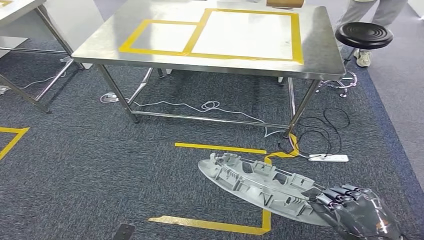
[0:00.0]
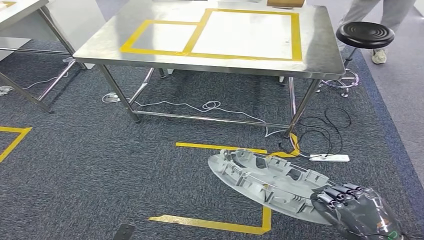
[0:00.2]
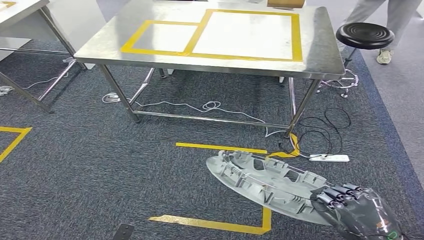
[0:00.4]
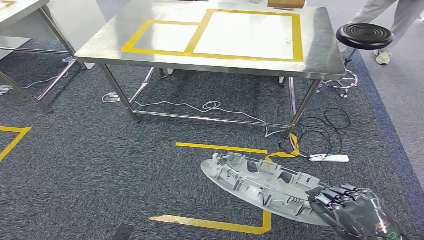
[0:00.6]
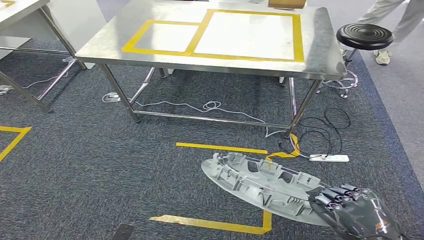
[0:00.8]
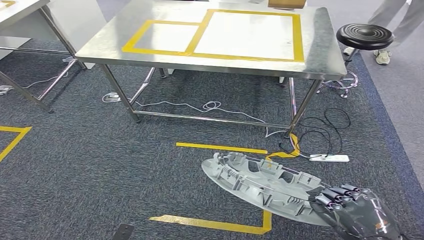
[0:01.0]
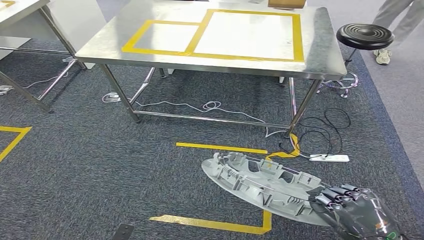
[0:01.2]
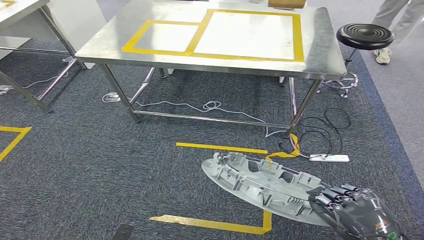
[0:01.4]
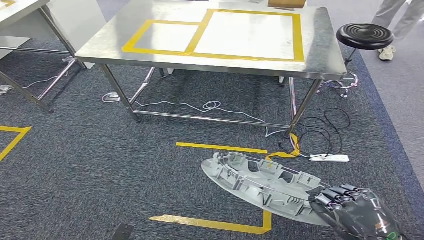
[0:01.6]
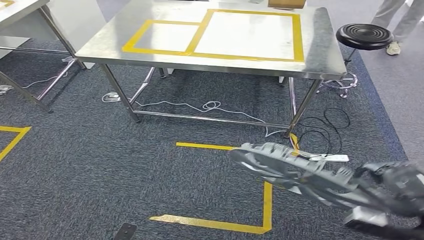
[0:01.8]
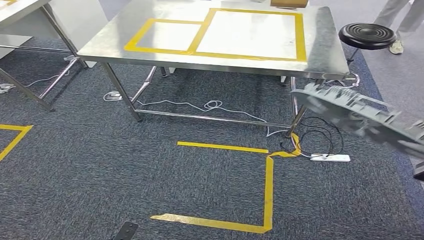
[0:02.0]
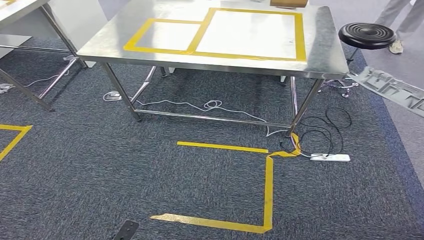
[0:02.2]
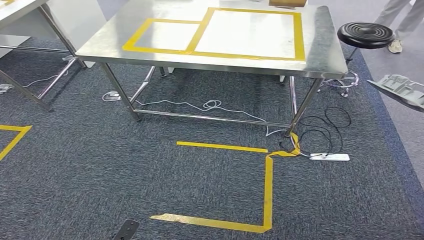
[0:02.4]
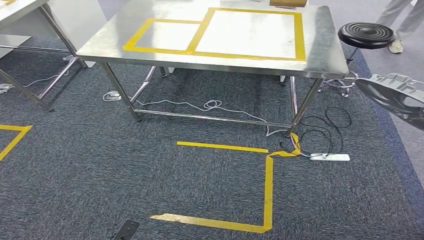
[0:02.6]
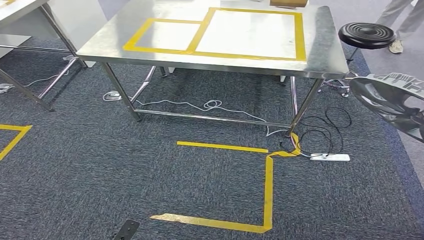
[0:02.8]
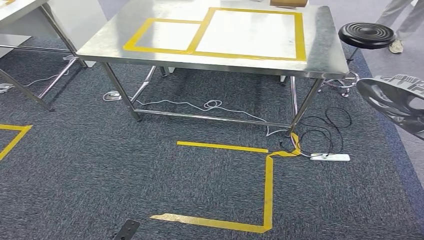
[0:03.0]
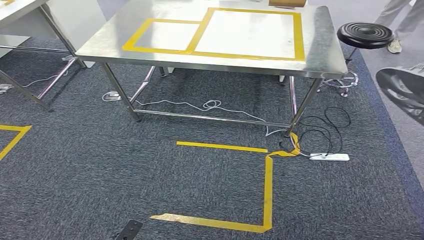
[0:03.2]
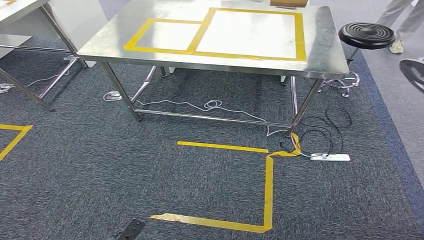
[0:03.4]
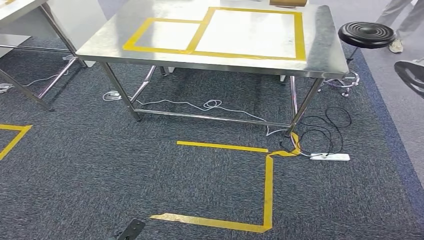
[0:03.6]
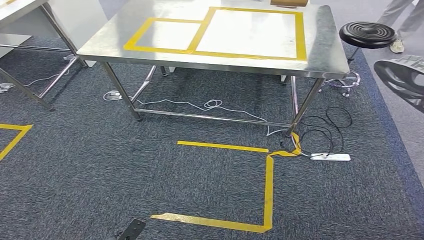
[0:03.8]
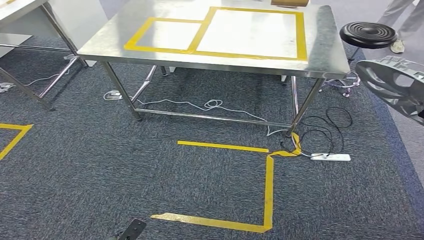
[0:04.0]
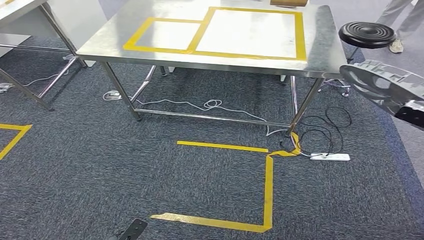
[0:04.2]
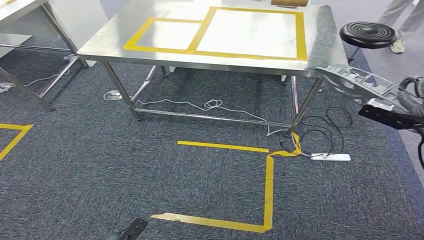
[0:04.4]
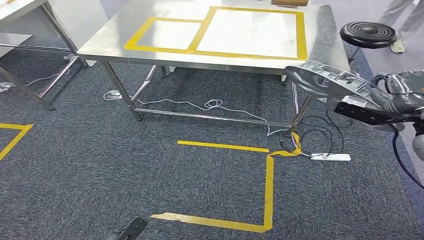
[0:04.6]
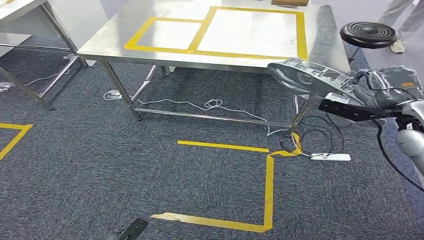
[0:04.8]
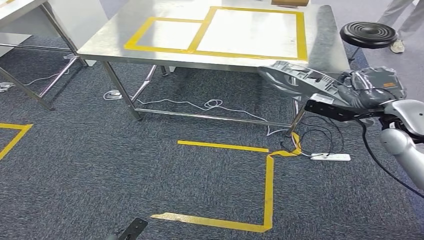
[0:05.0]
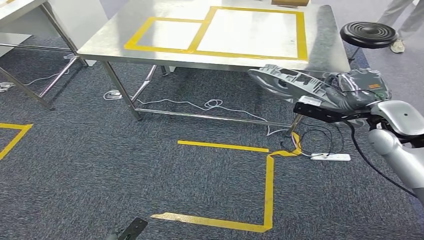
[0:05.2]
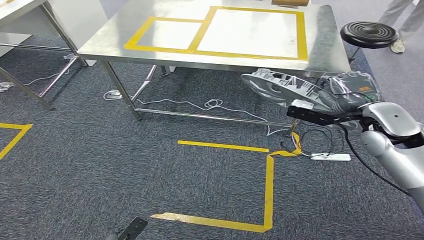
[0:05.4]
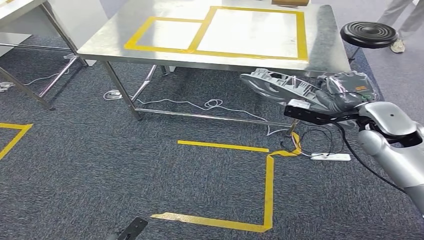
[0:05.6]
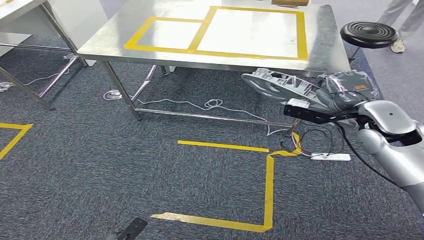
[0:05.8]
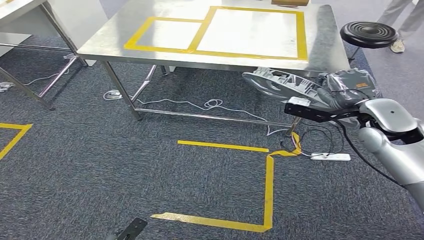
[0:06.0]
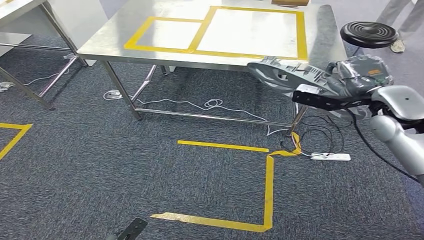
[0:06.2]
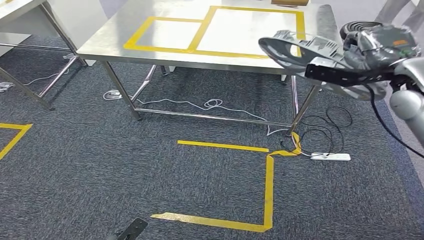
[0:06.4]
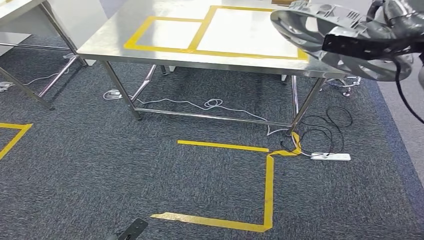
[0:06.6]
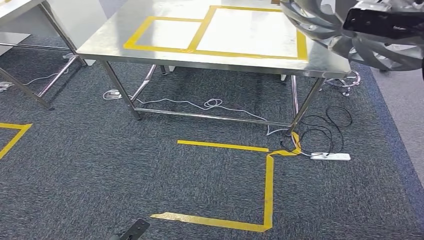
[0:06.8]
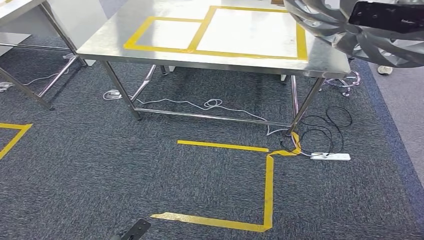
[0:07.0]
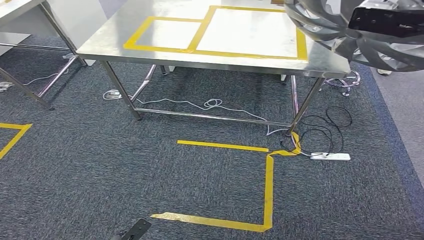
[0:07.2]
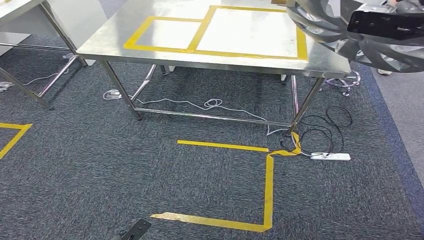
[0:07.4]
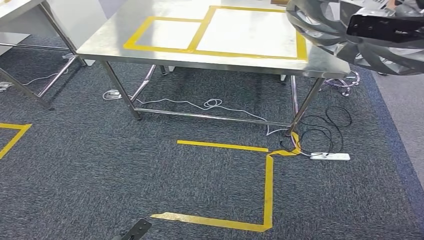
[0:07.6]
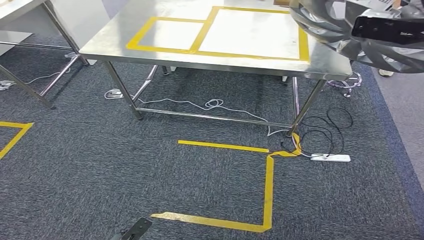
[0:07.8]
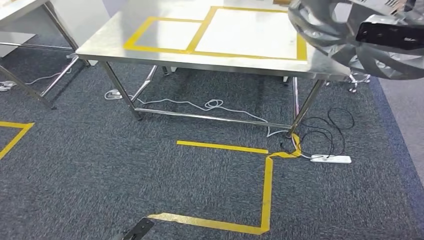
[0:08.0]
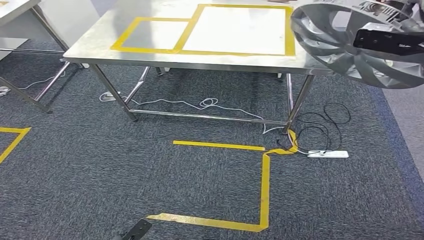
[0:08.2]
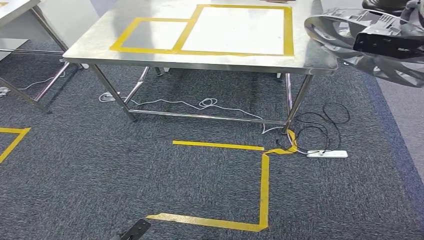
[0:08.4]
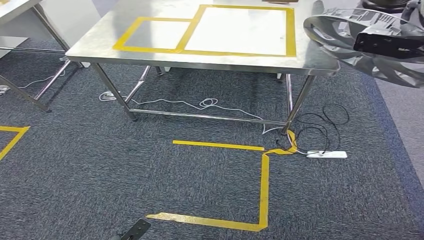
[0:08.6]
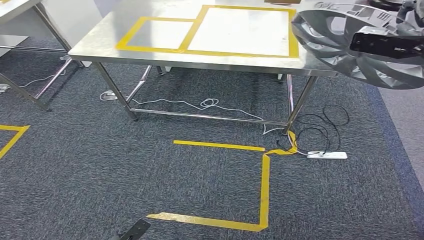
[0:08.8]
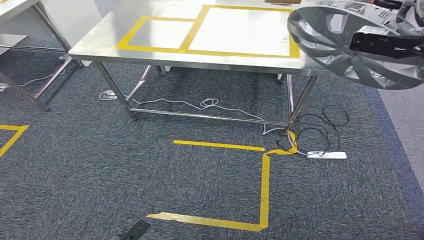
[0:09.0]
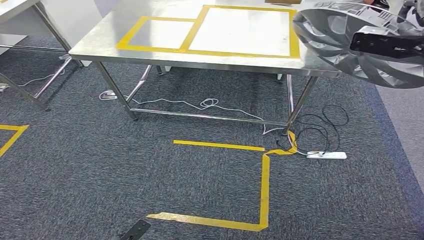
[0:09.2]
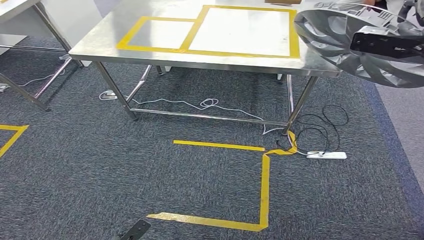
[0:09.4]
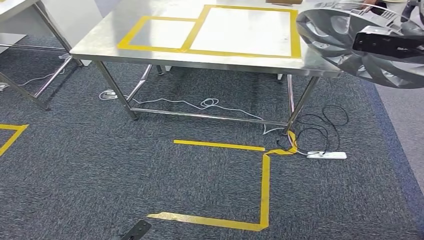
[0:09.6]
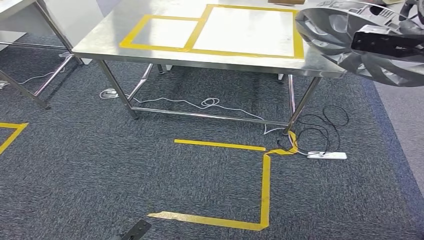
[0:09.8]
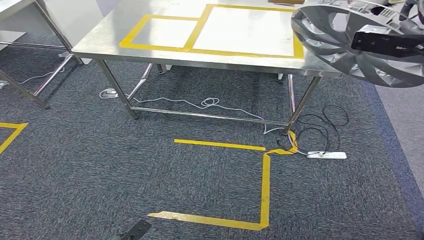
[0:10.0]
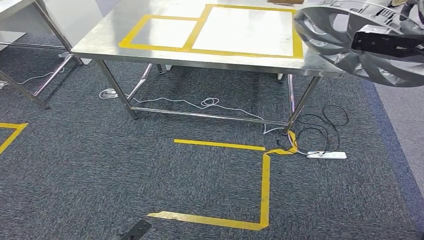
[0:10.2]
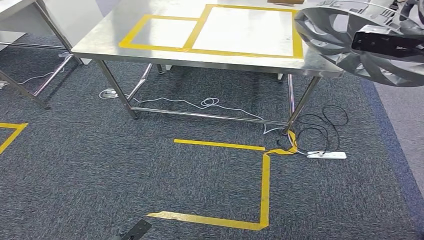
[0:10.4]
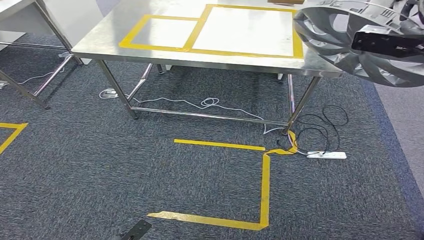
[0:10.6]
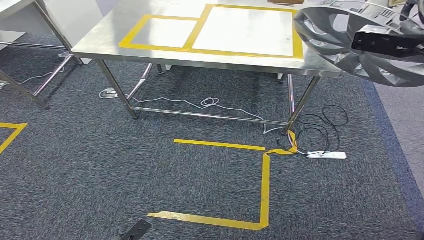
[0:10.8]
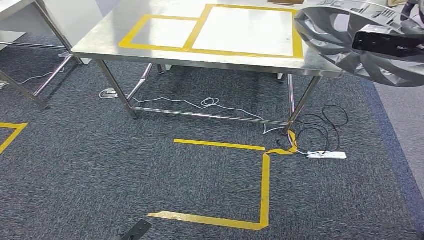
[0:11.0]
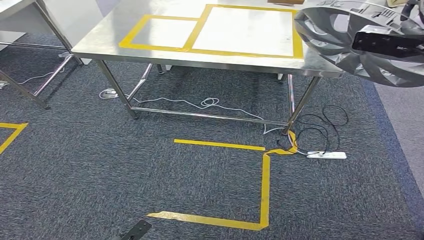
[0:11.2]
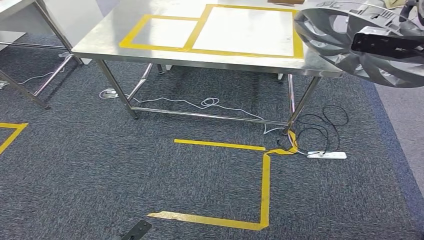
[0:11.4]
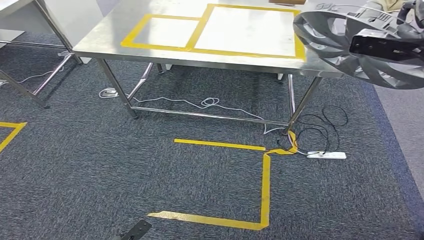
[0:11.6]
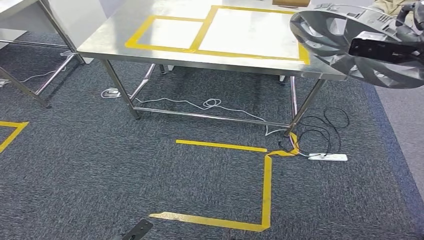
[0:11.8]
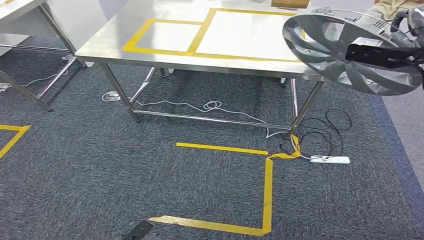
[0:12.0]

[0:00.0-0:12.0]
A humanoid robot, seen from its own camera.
0:00.0 to 0:01.6: Both hands stay put.
0:01.6 to 0:03.0: The right hand shifts roughly 25 cm to the right, upward and forward.
0:03.0 to 0:04.4: The right hand moves forward and to the left, roughly 15 cm.
0:04.4 to 0:06.0: The right hand shifts roughly 15 cm to the left.
0:06.0 to 0:07.6: The right hand is displaced upward by roughly 20 cm.
0:07.6 to 0:09.0: The hands stay close to where they were, moving slightly.
0:09.0 to 0:10.4: Both hands stay put.

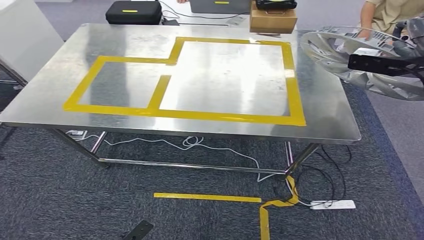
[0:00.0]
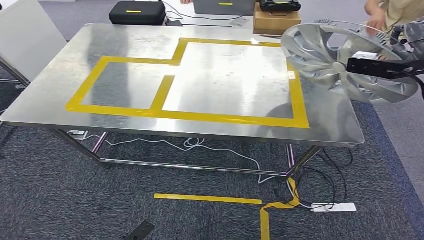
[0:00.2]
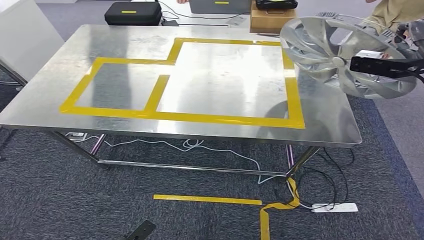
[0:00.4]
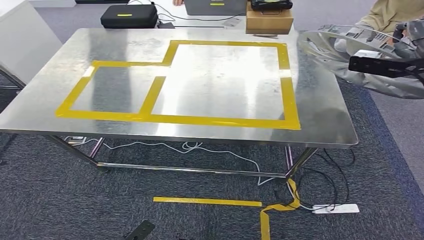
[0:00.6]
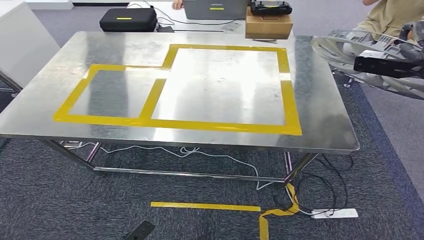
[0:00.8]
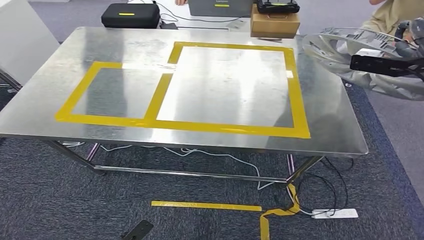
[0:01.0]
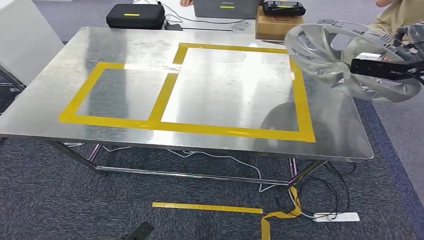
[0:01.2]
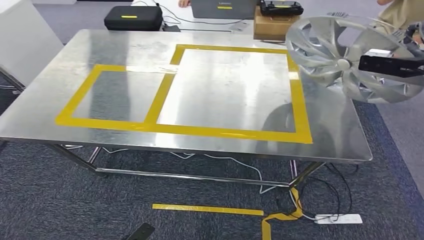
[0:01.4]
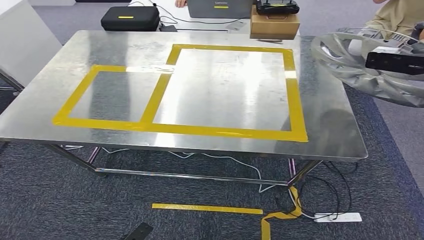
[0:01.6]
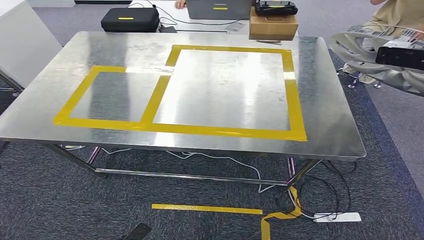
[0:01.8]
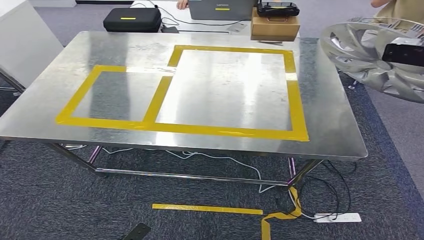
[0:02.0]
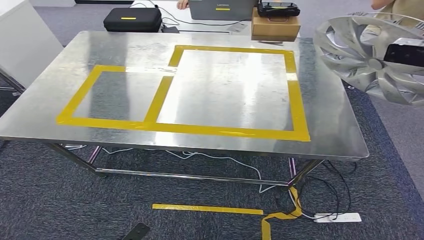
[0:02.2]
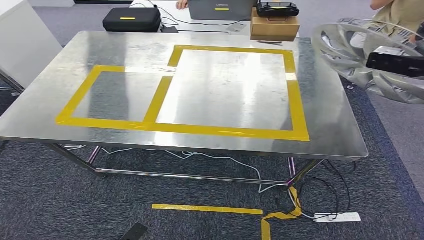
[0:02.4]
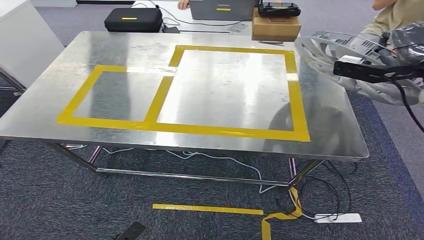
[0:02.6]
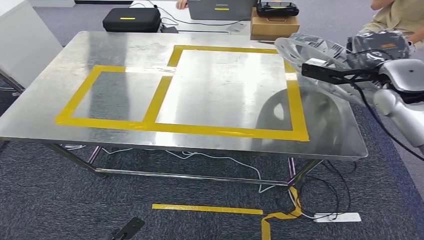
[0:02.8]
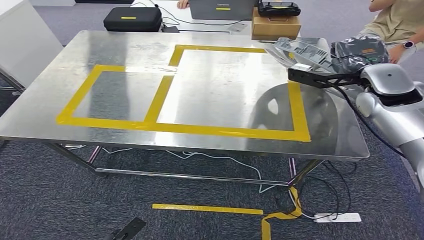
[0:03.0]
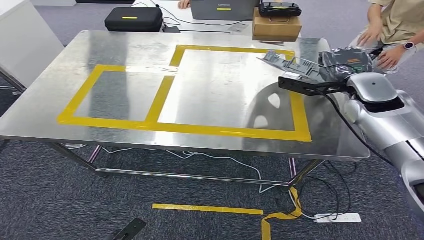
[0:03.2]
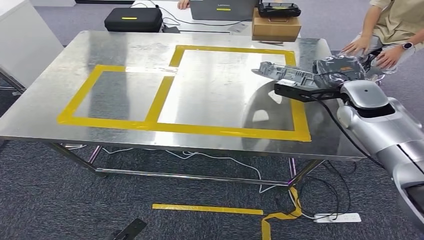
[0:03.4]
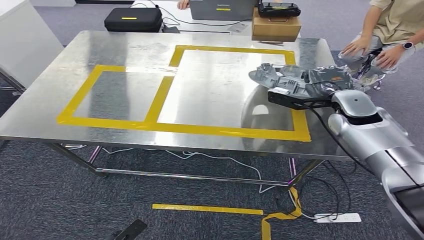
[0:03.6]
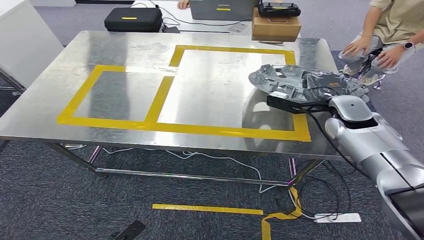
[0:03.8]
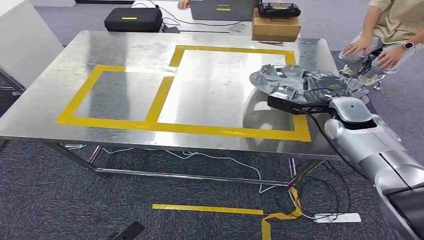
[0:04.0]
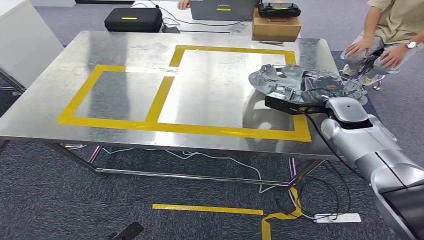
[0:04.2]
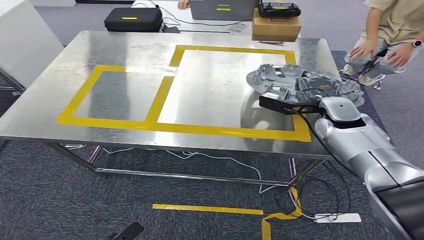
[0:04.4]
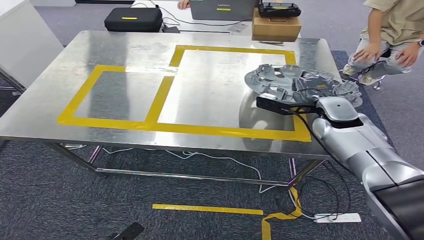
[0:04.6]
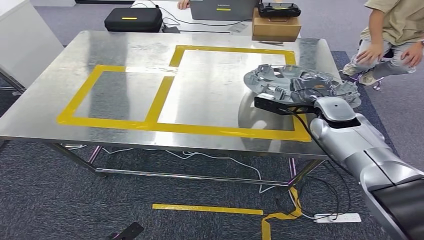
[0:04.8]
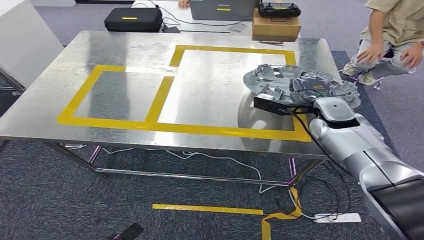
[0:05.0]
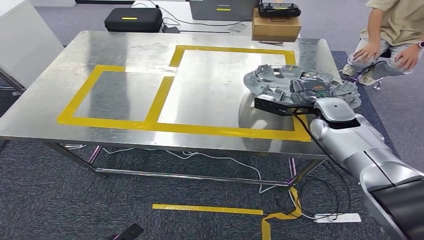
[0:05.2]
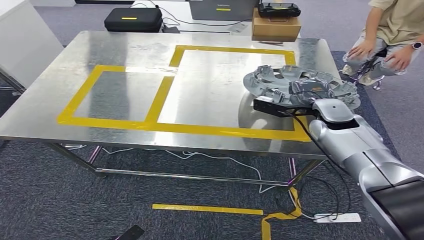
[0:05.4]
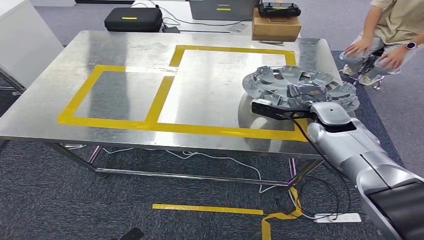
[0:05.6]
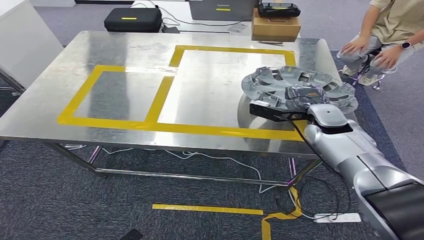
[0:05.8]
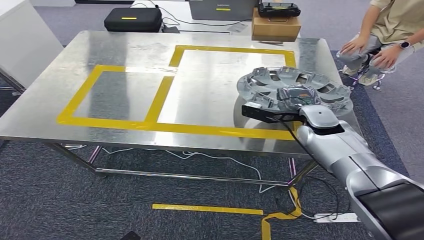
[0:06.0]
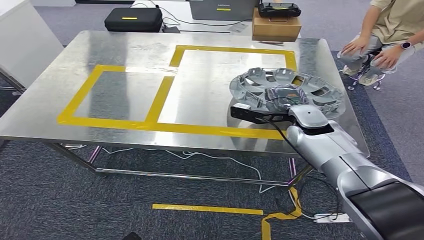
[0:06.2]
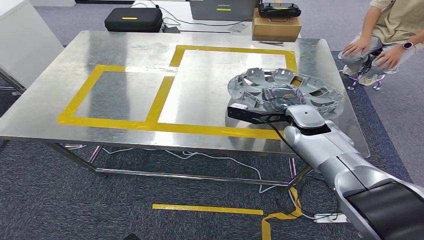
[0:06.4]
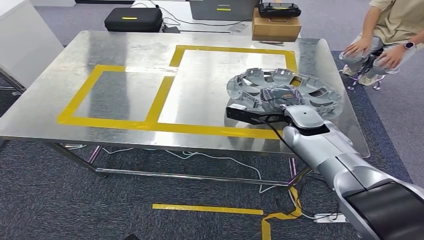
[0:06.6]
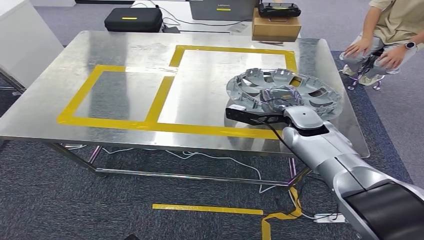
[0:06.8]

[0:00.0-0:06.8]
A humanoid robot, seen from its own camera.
Step, 0:00.0 to 0:04.2: Bring the small component to the front of the workbench.
0:01.4 to 0:02.8: The right hand travels to the left and downward by about 10 cm.
0:02.8 to 0:04.0: The right hand moves downward and to the left, approximately 15 cm.
0:04.0 to 0:05.4: The hands make only small movements.
0:05.4 to 0:06.8: The right hand travels to the left by approximately 5 cm.
